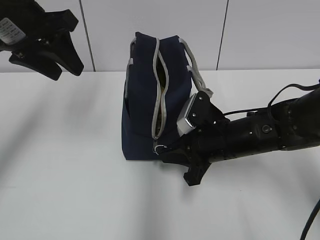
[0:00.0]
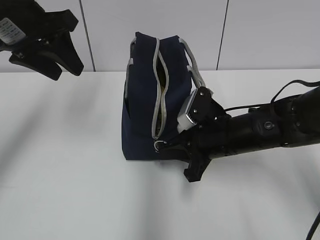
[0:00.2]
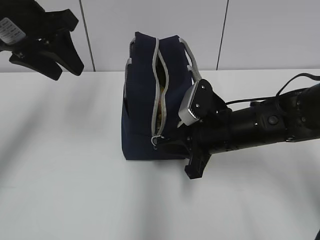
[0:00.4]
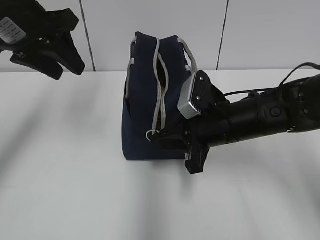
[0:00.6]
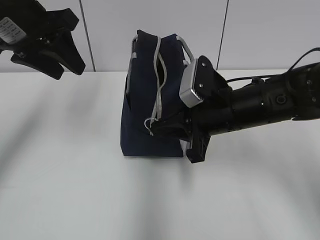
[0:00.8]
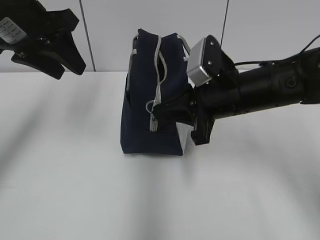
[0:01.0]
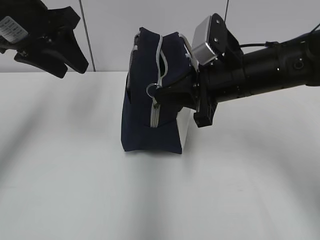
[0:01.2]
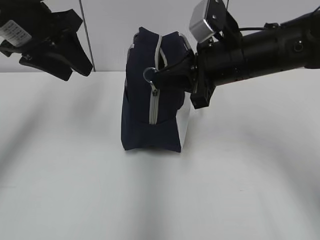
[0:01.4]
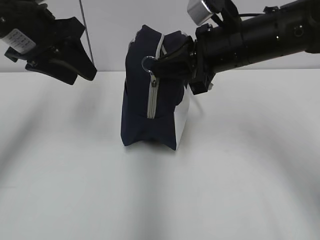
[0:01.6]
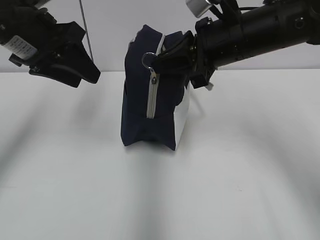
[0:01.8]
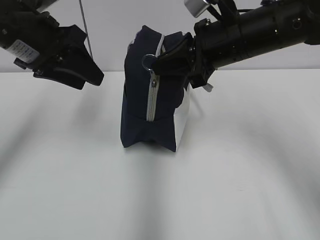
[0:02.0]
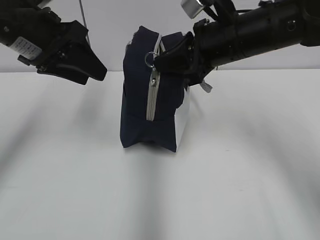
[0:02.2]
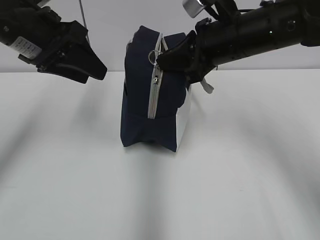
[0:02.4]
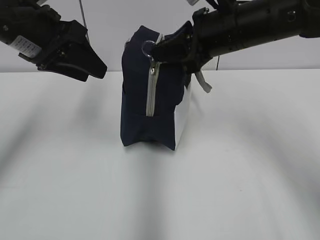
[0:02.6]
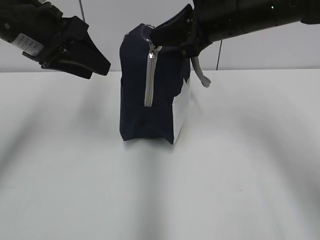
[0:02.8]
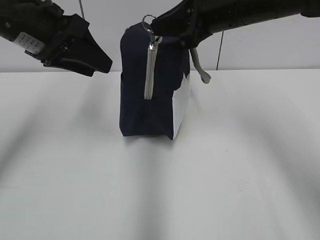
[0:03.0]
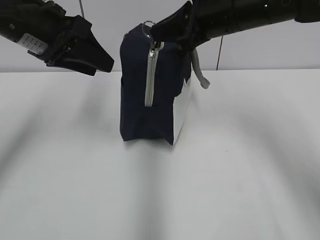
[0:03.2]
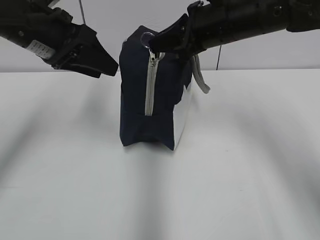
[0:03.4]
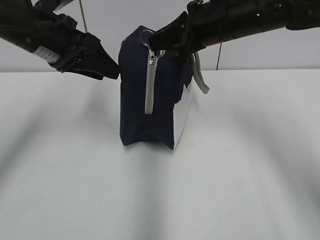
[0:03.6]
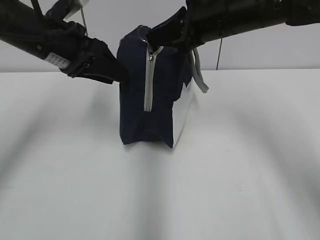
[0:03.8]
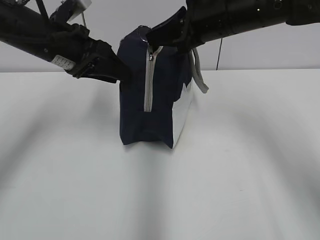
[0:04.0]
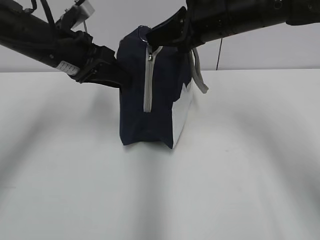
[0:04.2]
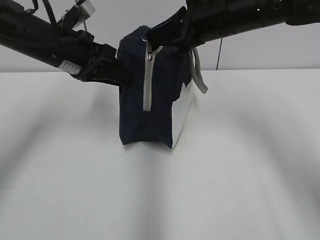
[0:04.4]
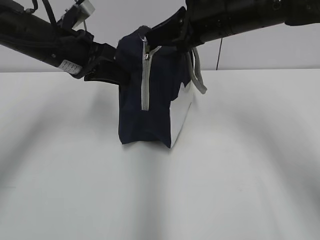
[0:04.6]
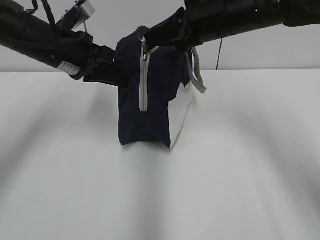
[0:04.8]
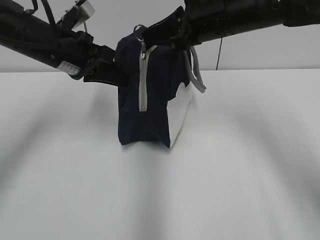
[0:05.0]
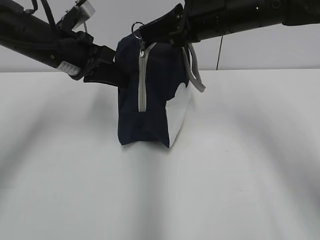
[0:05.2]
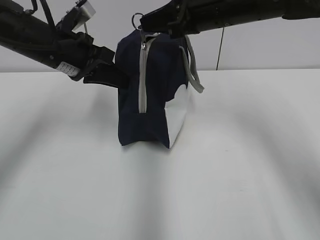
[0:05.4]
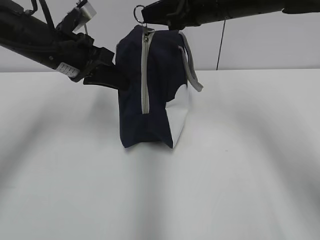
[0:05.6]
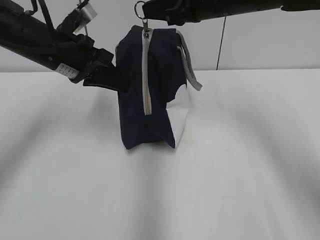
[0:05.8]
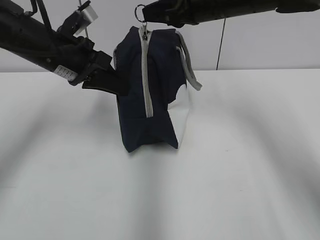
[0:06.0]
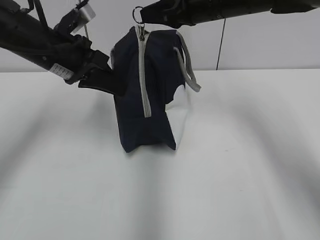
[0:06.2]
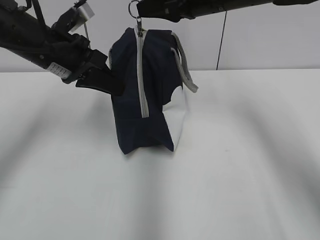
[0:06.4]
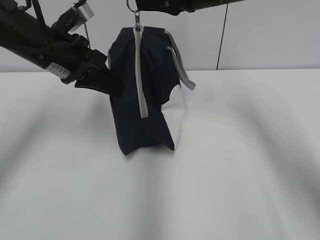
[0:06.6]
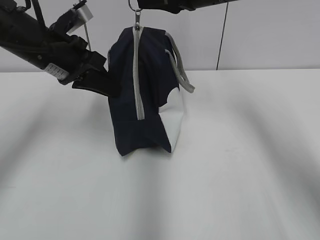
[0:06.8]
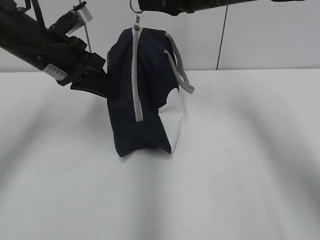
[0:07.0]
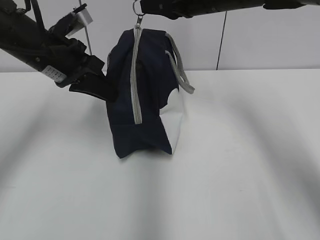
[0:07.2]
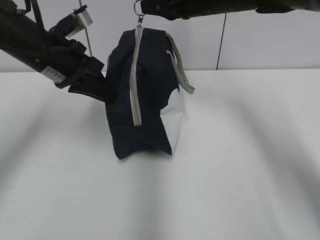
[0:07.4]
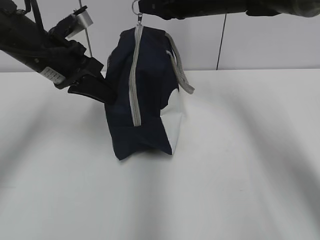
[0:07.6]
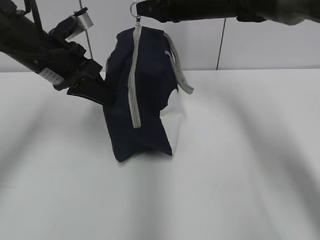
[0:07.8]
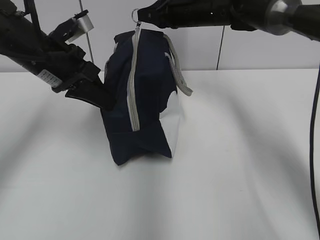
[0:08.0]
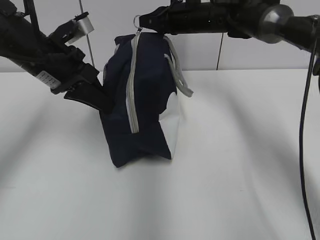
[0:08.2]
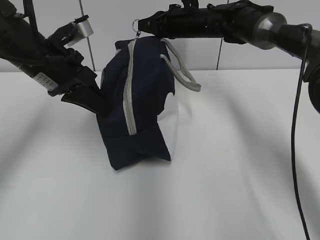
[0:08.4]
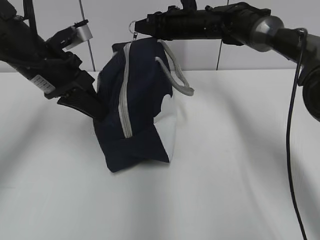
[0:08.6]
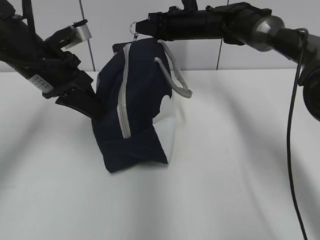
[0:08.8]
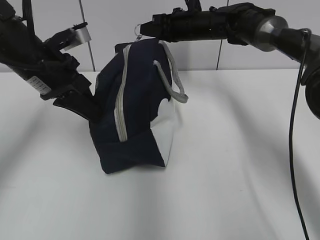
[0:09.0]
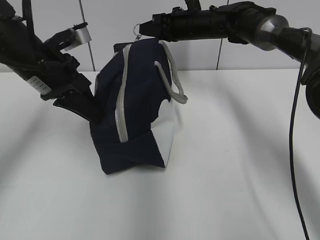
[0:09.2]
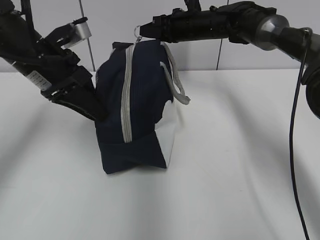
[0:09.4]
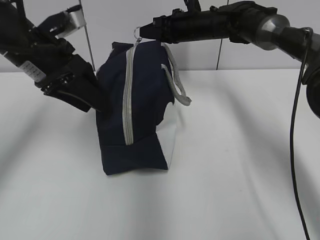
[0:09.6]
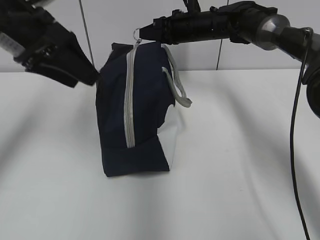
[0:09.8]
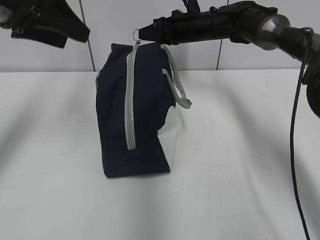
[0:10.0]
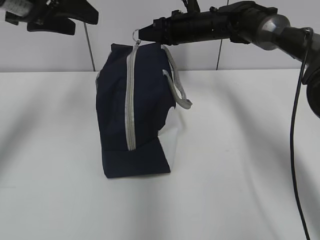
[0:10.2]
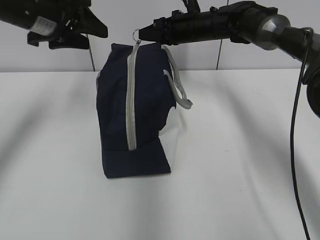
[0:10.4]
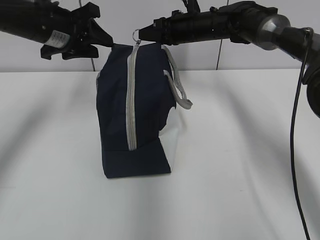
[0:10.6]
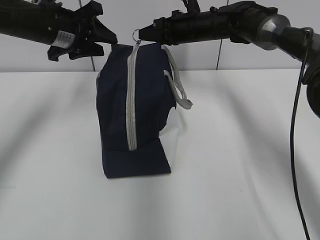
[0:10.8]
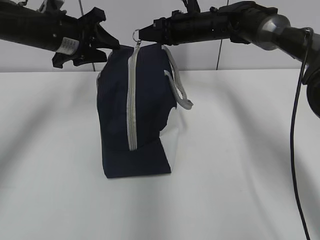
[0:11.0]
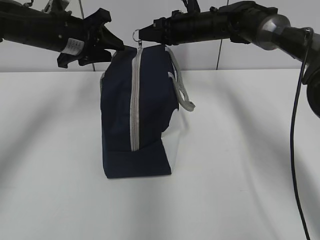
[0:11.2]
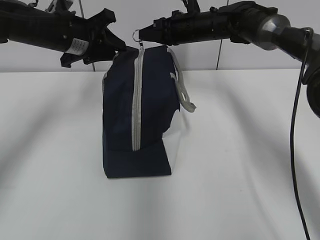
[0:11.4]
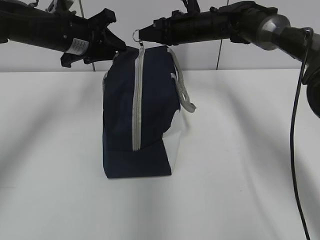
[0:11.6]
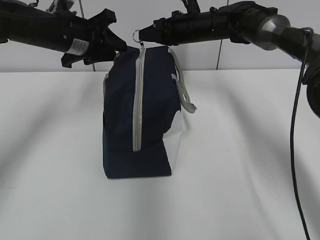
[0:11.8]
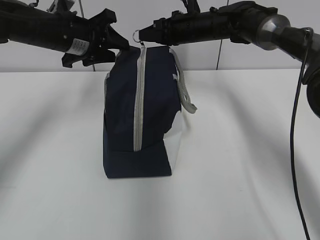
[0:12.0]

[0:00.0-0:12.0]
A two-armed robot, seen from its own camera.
Step, 0:00.0 to 0:05.4: Grab the lunch bag with your left hand.
0:00.0 to 0:01.6: The right gripper moves upward, roughly 15 cm.
0:01.6 to 0:03.0: The right gripper changes place by roughly 5 cm.
0:03.0 to 0:04.4: The left gripper heads downward, covering approximately 5 cm.
0:04.4 to 0:06.0: The left gripper closes its fingers.
0:06.0 to 0:07.6: The right gripper moves forward, approximately 5 cm.
0:07.6 to 0:09.0: The right gripper moves downward and forward, about 10 cm.
0:09.0 to 0:10.4: The left gripper moves upward and forward, approximately 10 cm, and opens.
0:10.4 to 0:12.0: The left gripper shifts approximately 5 cm downward.

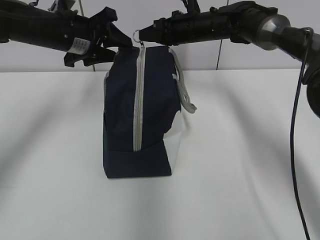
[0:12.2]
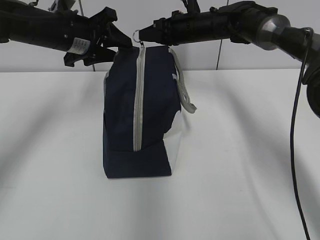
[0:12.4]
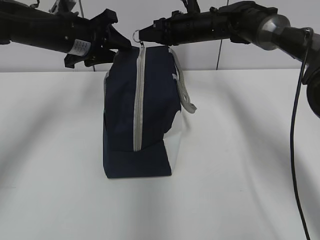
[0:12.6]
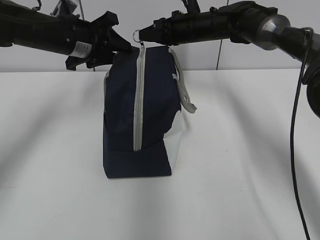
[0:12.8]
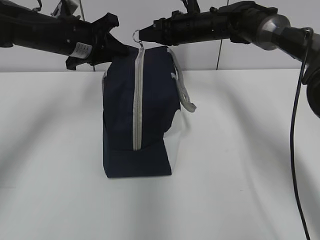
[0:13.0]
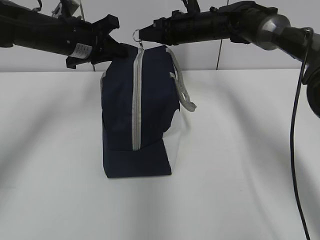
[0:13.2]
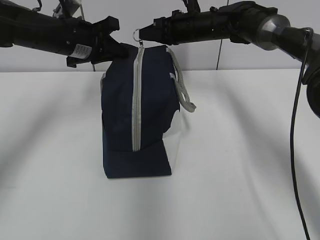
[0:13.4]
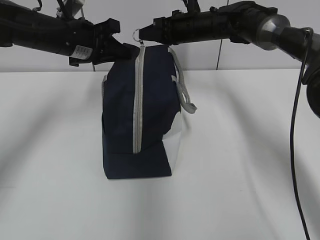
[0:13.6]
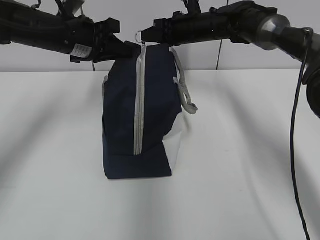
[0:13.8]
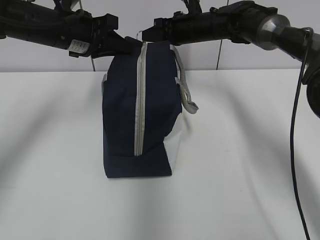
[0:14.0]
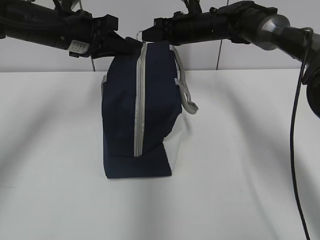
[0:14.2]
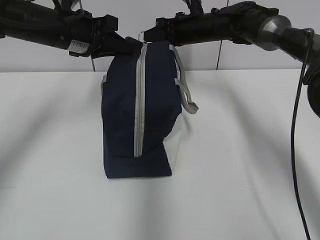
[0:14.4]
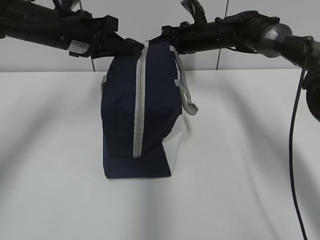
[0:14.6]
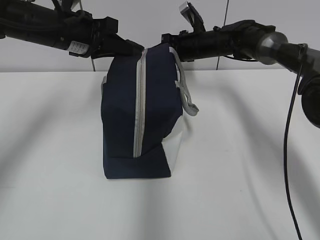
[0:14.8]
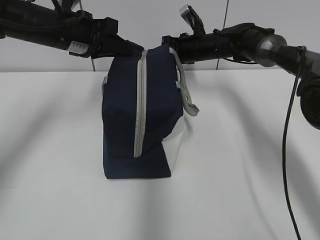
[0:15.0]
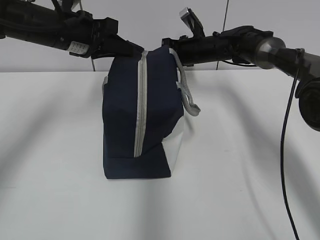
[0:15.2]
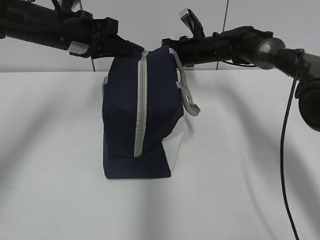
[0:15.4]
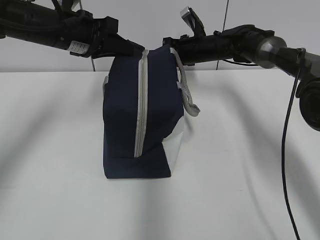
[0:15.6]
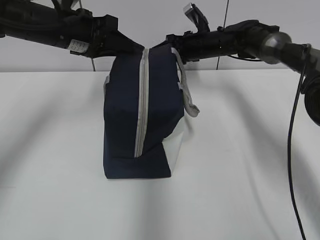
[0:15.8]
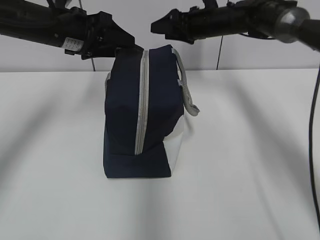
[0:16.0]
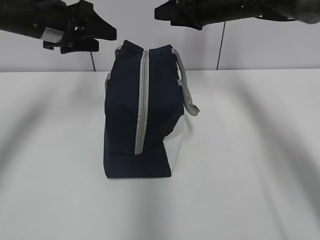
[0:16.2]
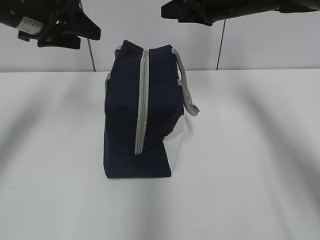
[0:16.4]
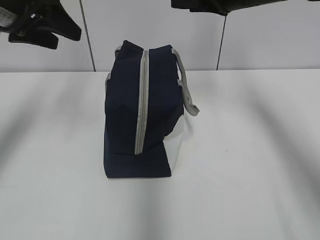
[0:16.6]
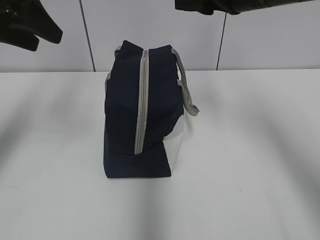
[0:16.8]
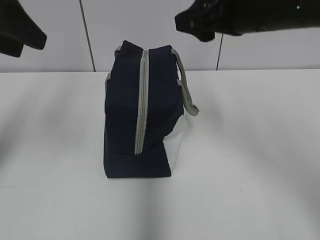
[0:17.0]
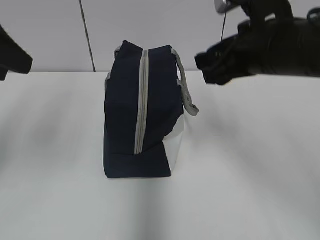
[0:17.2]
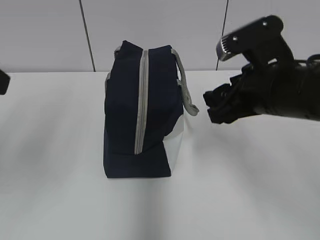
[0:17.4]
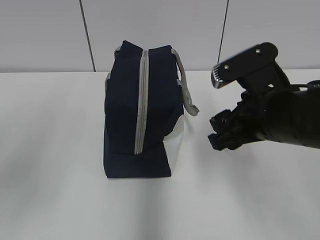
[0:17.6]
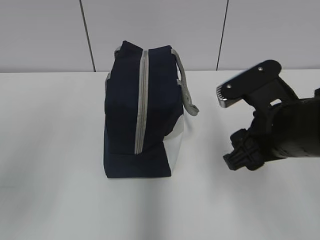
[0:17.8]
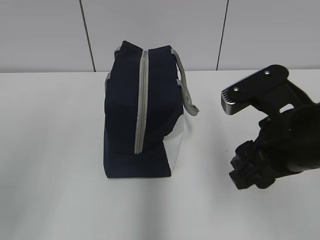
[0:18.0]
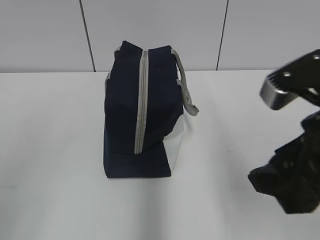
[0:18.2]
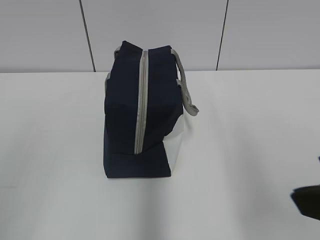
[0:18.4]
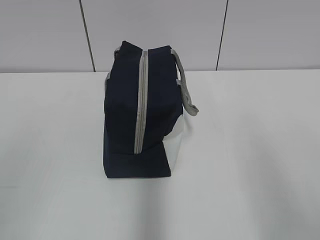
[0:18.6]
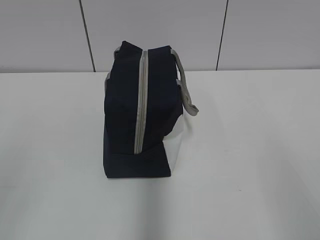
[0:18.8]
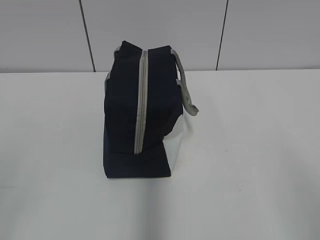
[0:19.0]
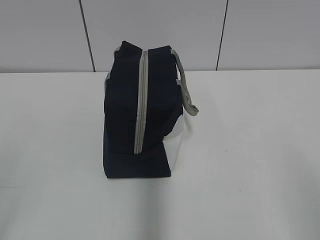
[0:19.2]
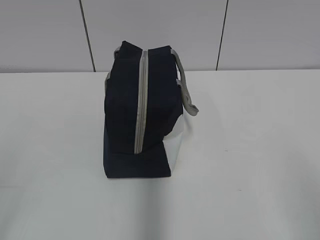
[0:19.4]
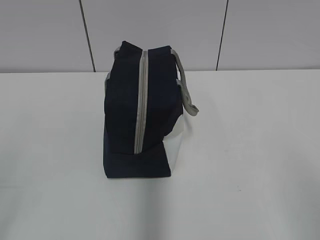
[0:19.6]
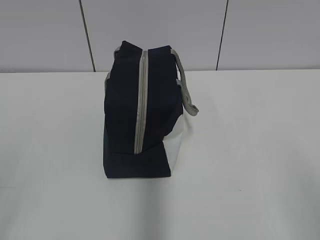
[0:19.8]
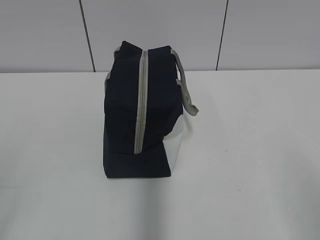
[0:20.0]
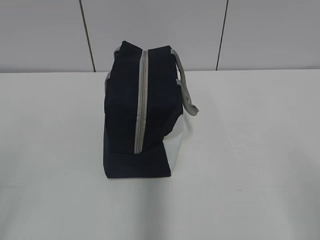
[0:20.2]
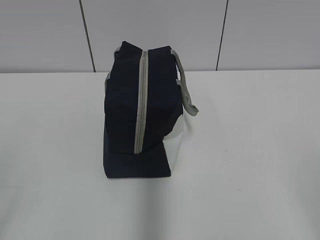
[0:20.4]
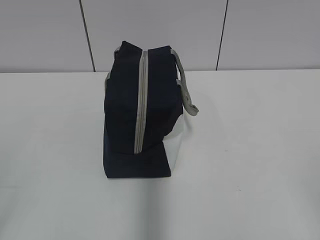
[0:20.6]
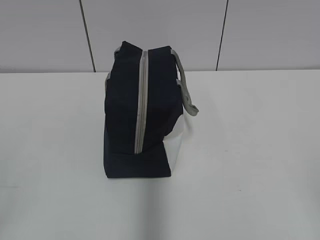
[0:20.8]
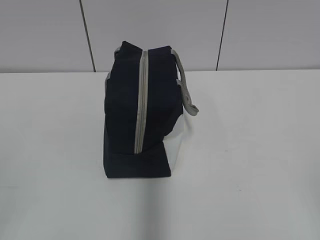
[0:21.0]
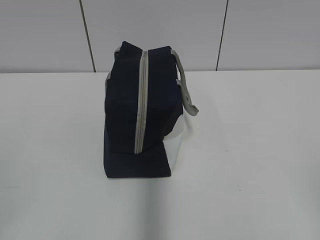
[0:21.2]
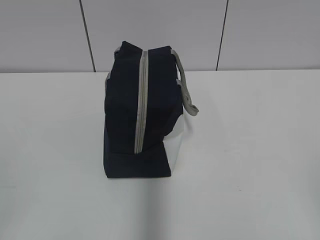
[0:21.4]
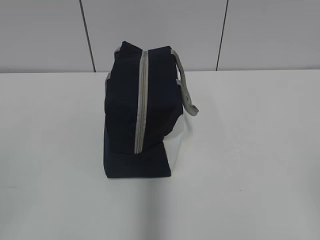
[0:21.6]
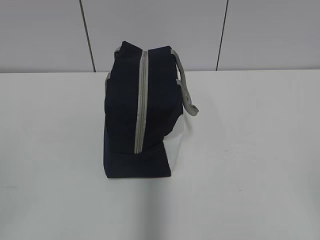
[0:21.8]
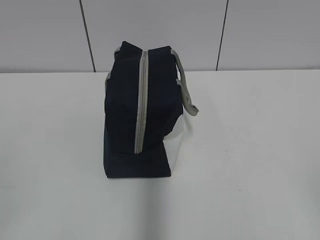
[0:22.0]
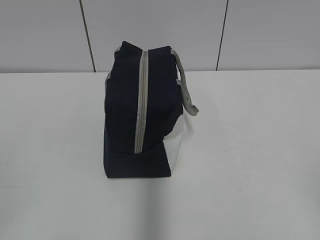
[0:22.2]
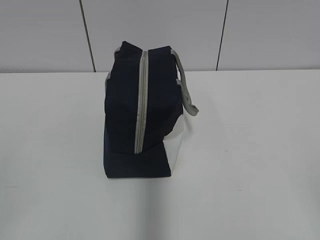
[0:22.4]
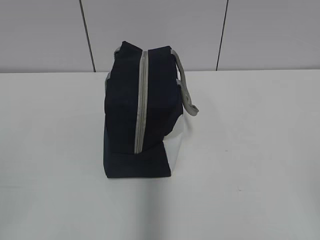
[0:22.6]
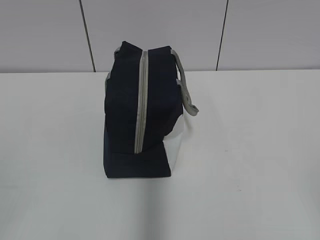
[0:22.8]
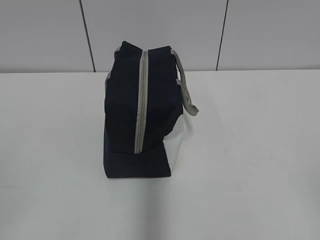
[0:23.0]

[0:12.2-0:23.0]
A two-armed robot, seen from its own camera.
Step, 0:12.2 to 0:15.4: Pull the zipper with your right hand.
0:12.2 to 0:13.8: The left gripper closes up.
0:13.8 to 0:15.2: The right gripper travels downward by about 5 cm.
0:15.2 to 0:16.8: The right gripper heads upward and backward, covering about 25 cm, and opens up, while the left gripper heads upward, backward and to the left, covering some 15 cm, and opens up.
0:16.8 to 0:18.4: Both grippers travel together backward, approximately 30 cm.
0:18.4 to 0:20.0: The right gripper travels backward and to the right by about 15 cm.
0:21.4 to 0:23.0: Both grippers stay put.
